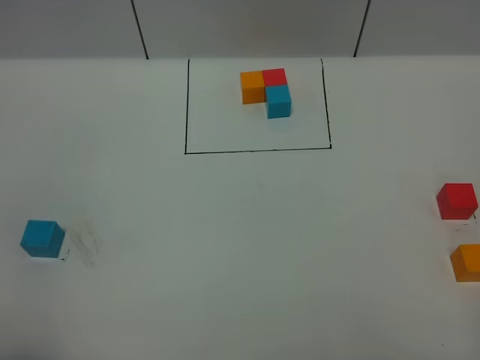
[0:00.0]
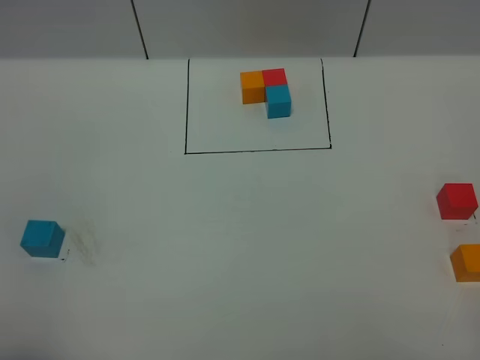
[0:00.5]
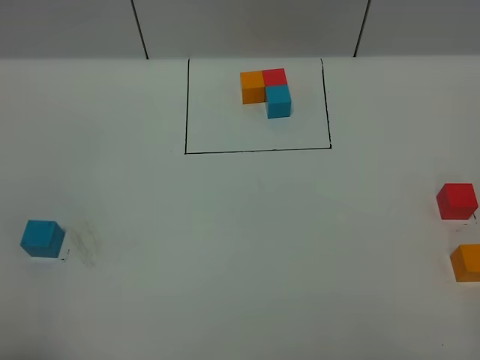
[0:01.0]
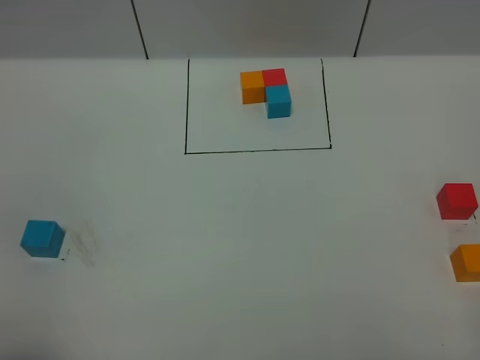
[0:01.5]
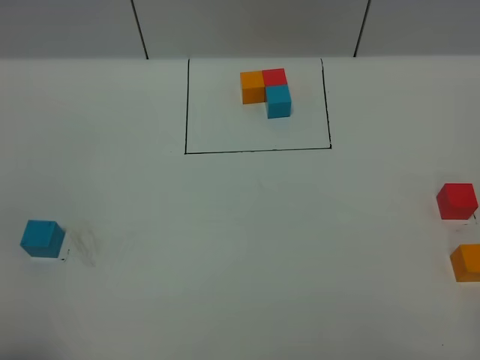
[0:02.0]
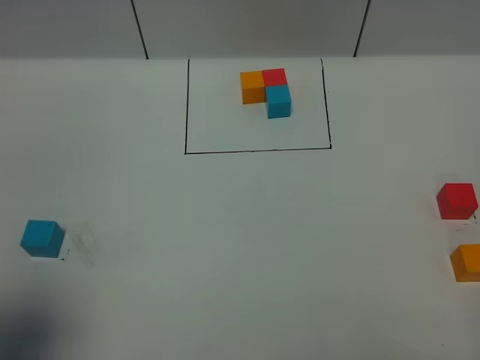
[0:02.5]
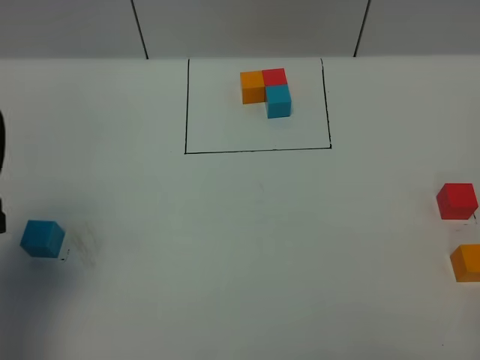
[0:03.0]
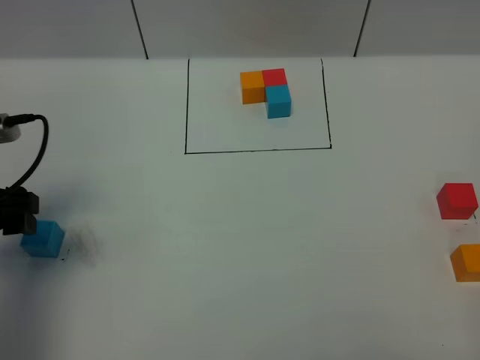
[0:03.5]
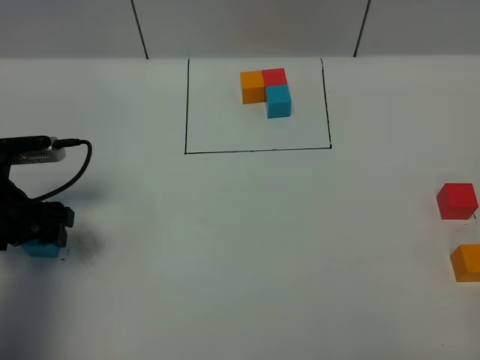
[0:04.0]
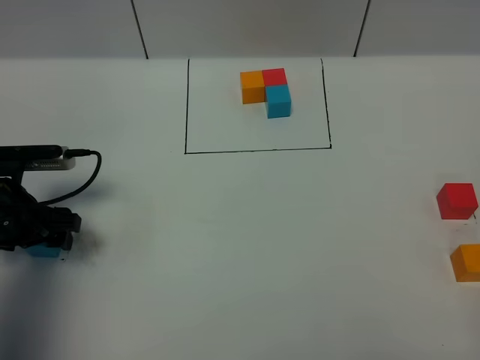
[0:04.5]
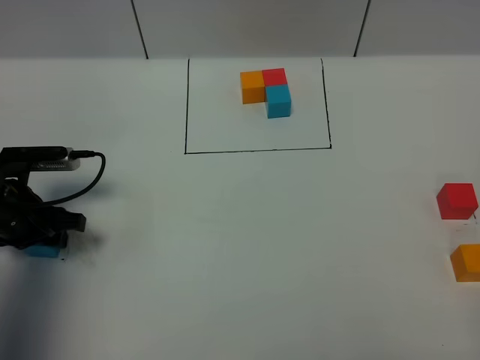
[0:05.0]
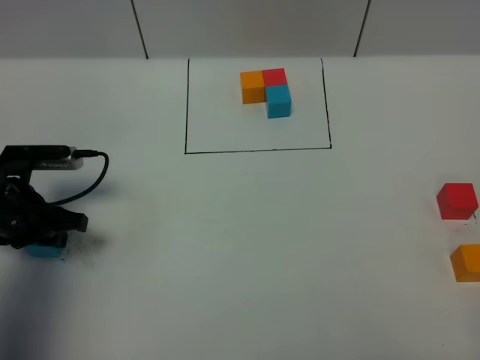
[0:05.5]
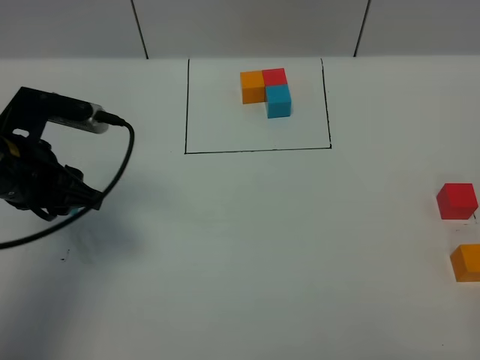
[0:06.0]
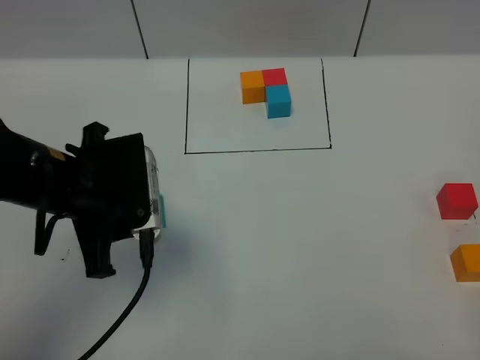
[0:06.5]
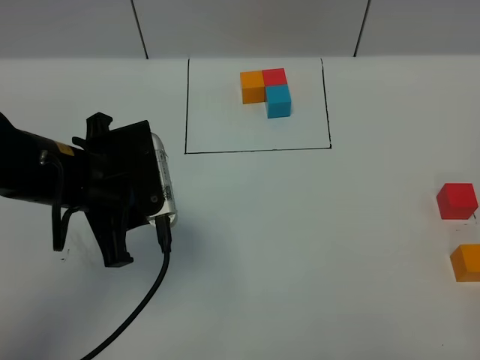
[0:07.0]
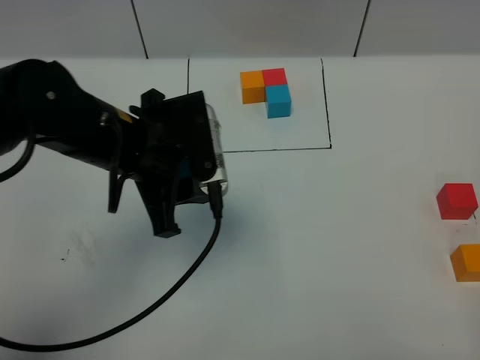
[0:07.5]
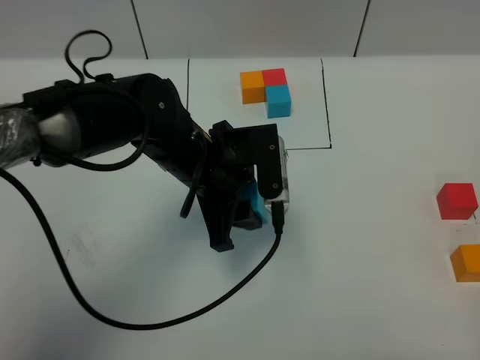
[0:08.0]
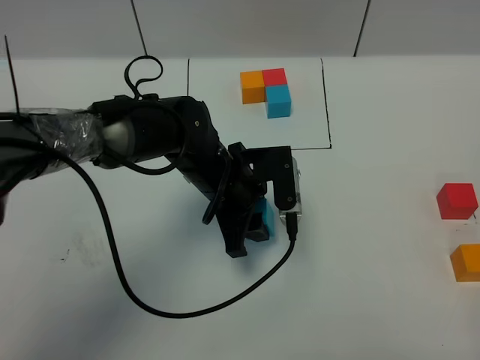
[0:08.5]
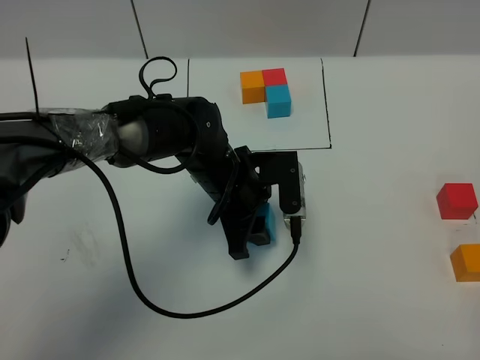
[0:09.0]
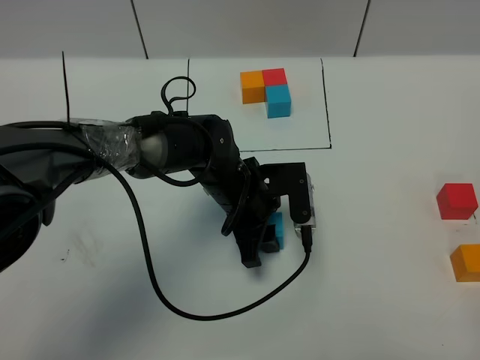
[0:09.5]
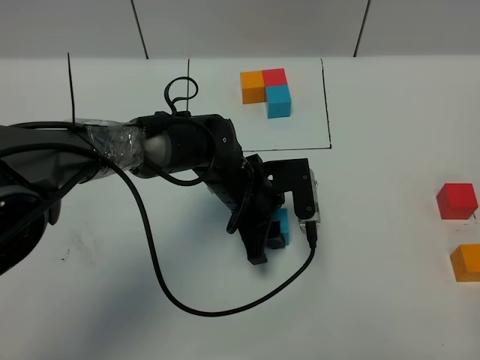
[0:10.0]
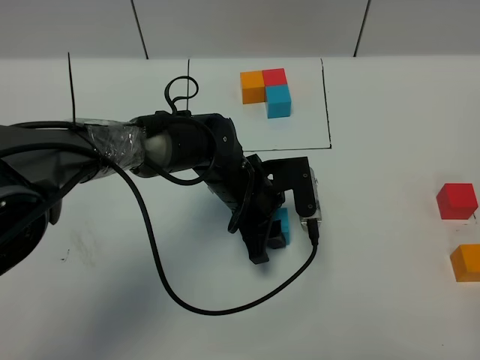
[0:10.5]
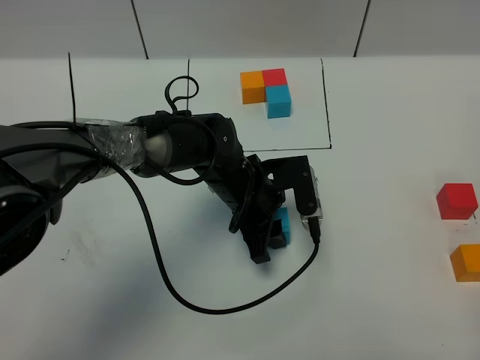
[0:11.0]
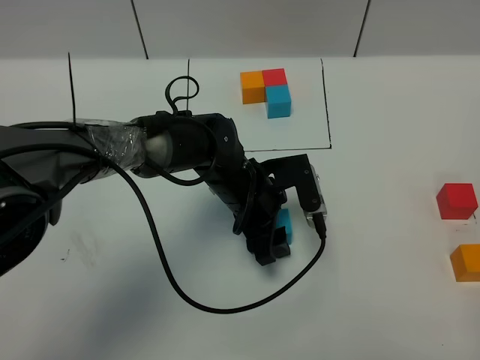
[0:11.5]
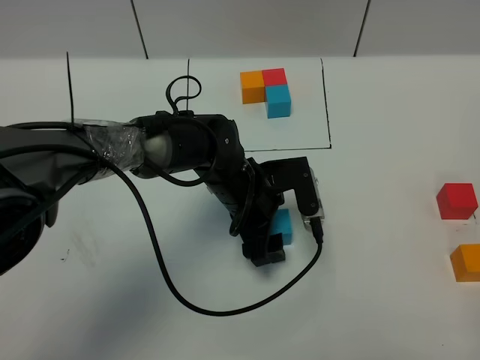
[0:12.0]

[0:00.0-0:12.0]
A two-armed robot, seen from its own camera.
Task of the whole recording: According to the building block template in front, assemble the scattered blocks together.
Step, 0:03.0 to 0:11.5: Put the blue cube in the center of the table.
0:02.0 to 0:04.0: The left gripper heads forward and downward, covering about 30 cm.
0:04.0 to 0:06.0: The left gripper goes roughly 10 cm upward and to the right, and closes up.
0:06.0 to 0:08.0: The left gripper heads to the right, covering some 20 cm.
0:08.0 to 0:10.0: The left gripper is displaced downward by about 10 cm.
0:10.0 to 0:12.0: The left gripper opens up.

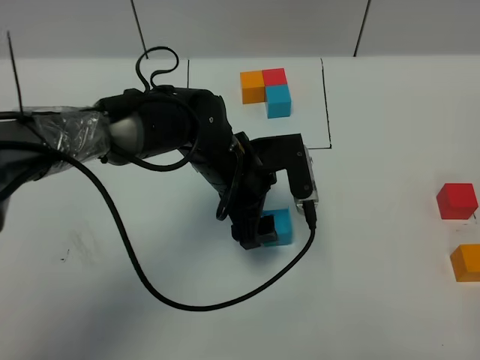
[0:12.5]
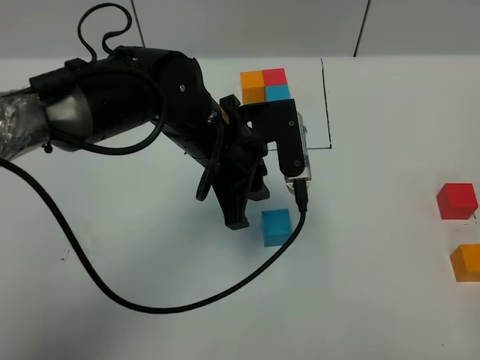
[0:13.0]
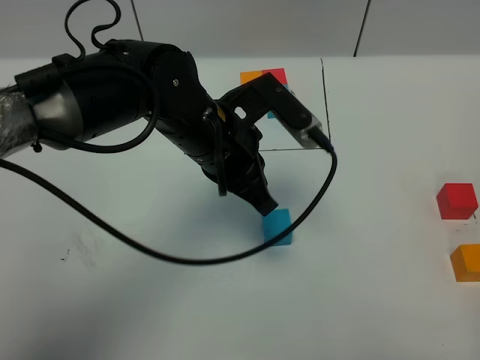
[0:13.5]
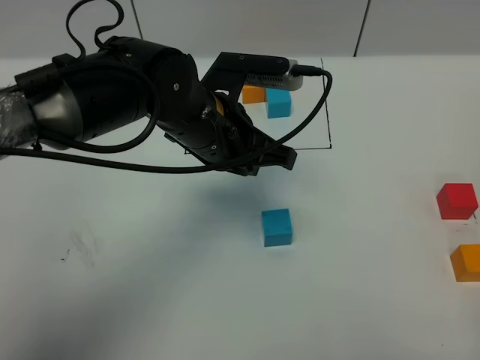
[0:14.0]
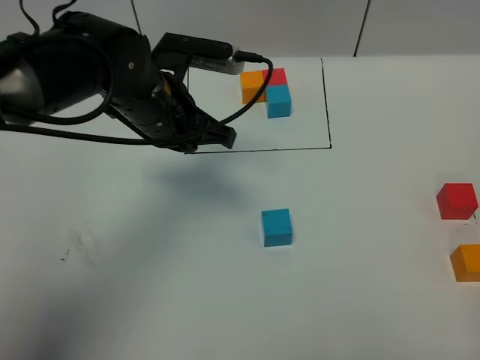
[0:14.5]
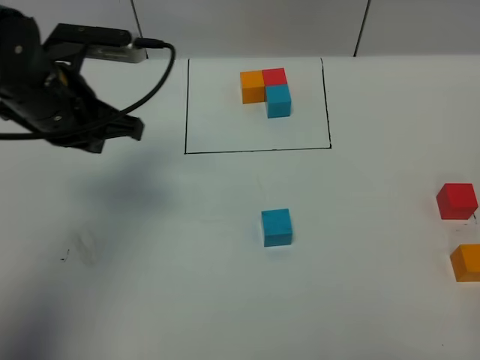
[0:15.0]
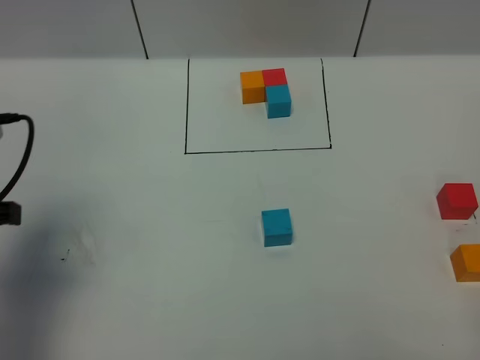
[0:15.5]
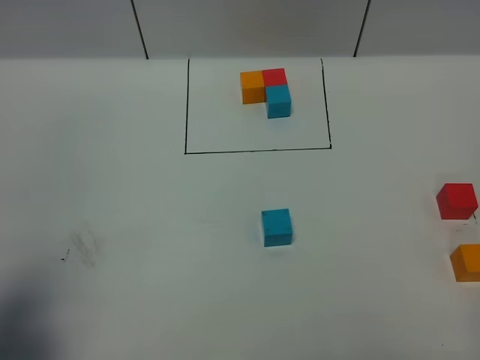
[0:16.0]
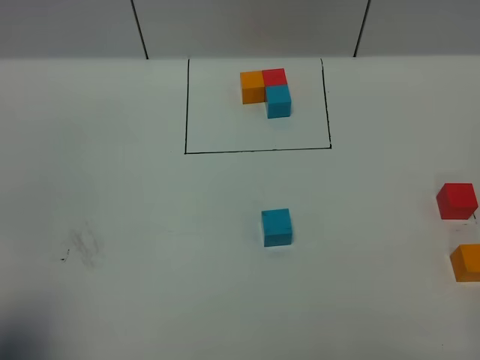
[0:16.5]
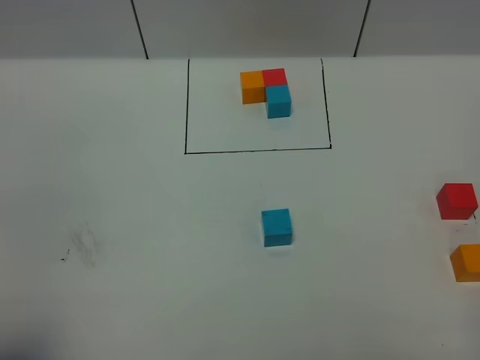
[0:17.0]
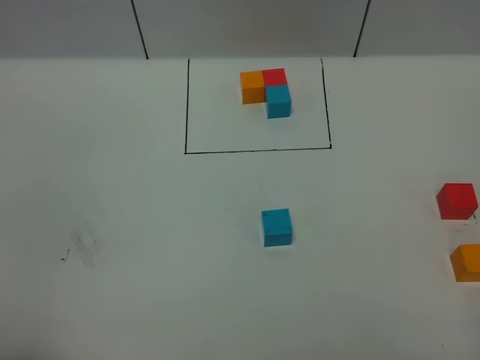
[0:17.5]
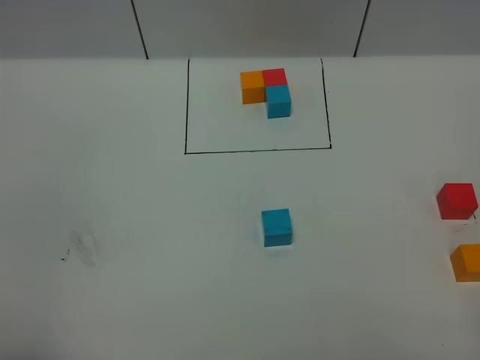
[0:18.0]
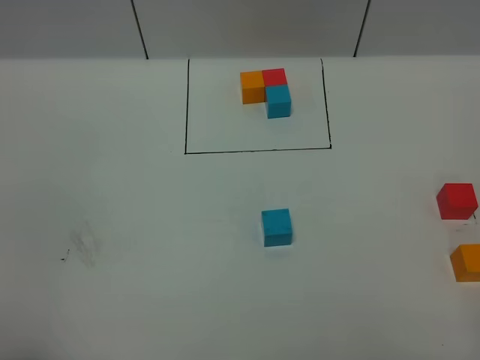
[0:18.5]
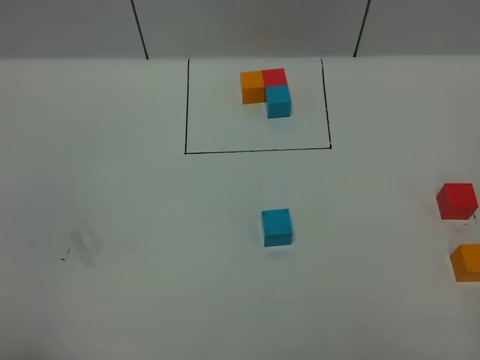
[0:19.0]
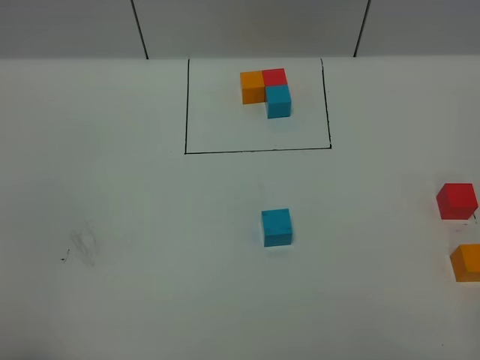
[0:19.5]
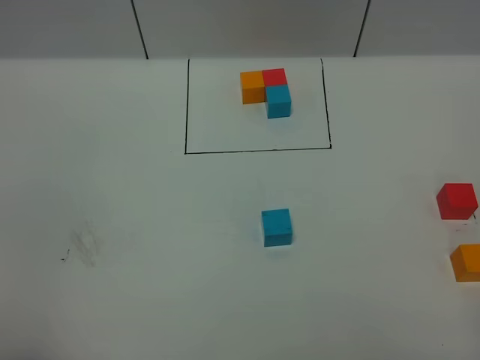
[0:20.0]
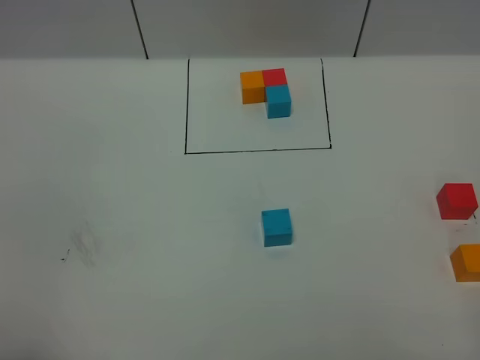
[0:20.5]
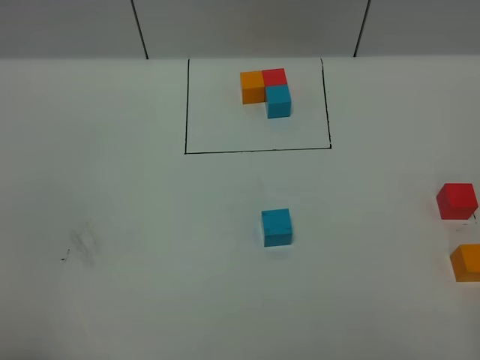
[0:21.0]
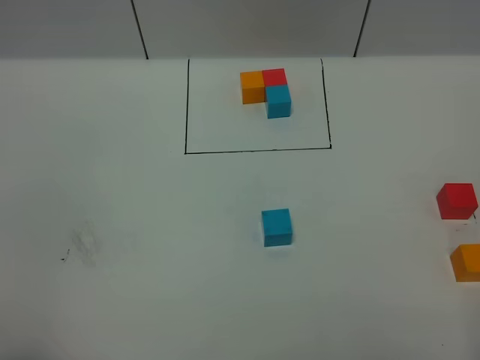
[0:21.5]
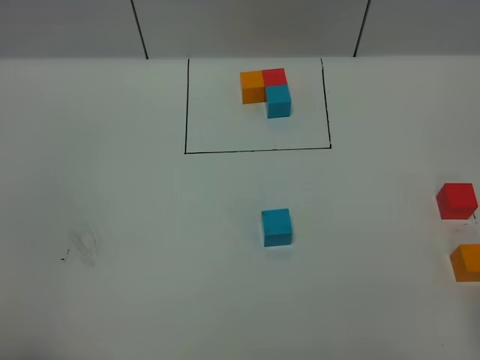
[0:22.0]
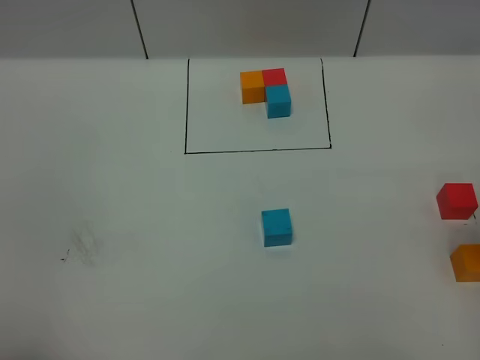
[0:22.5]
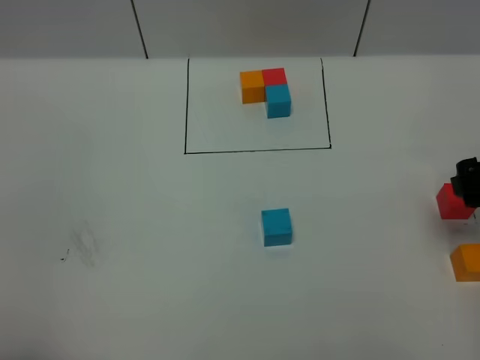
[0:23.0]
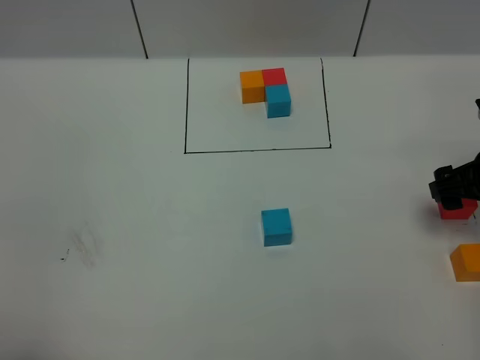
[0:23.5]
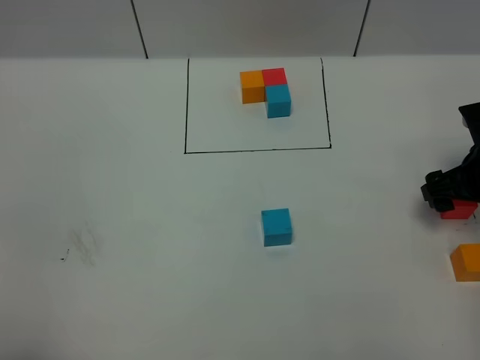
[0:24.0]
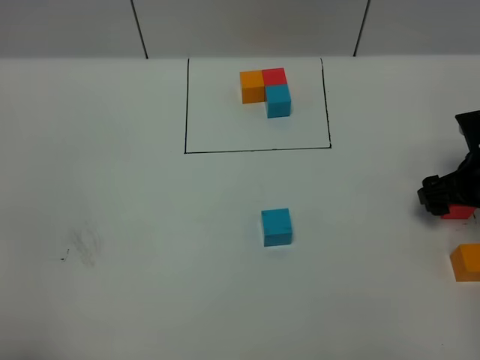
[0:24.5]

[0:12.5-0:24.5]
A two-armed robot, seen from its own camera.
Task of the whole recording: According to the building block template in front, assemble the scattered blocks together.
0:12.5 to 0:14.5: The left gripper is displaced to the left and upward by approximately 10 cm, and closes its fingers.
0:14.5 to 0:16.5: The left gripper is displaced backward and to the left by roughly 35 cm.
0:16.5 to 0:18.5: The left gripper travels backward by about 5 cm.
0:18.5 to 0:20.5: Both grippers stay about where they are.
0:22.5 to 0:24.5: The right gripper moves downward and forward, roughly 20 cm.

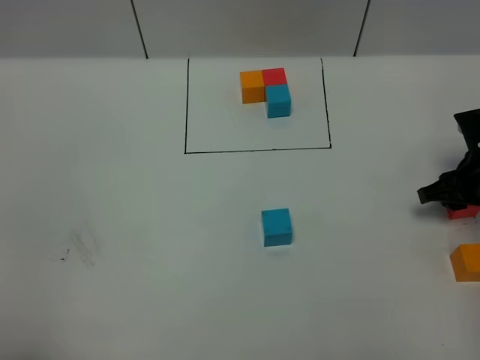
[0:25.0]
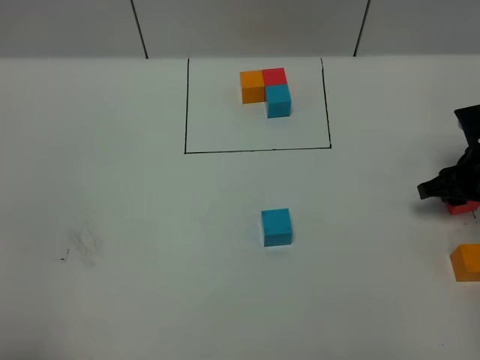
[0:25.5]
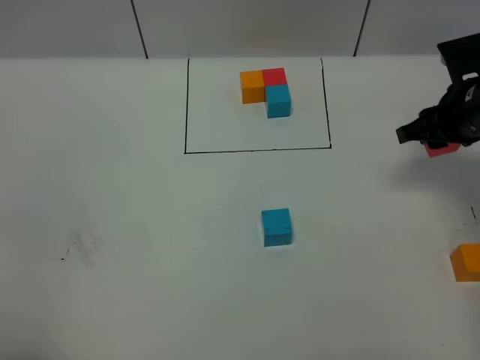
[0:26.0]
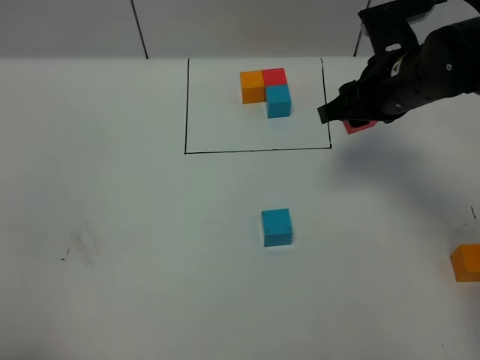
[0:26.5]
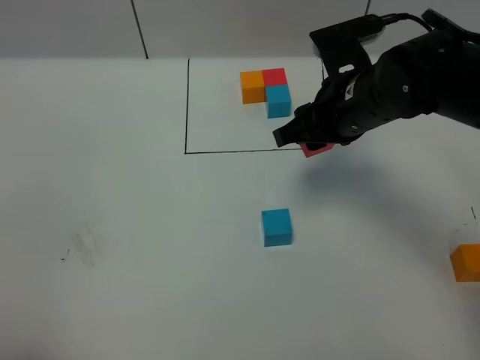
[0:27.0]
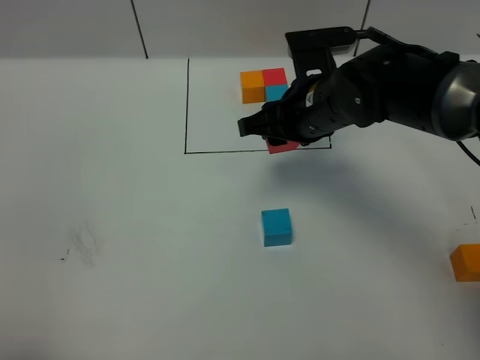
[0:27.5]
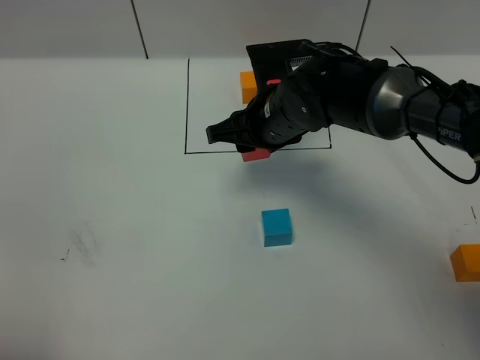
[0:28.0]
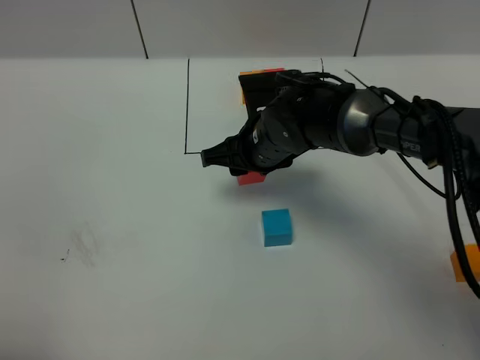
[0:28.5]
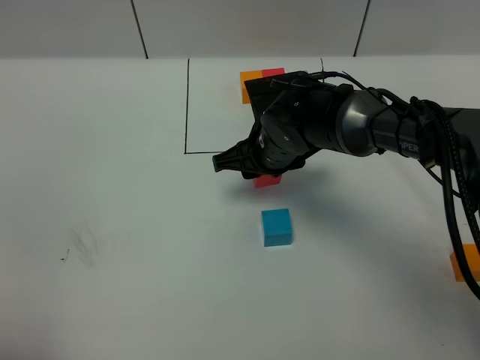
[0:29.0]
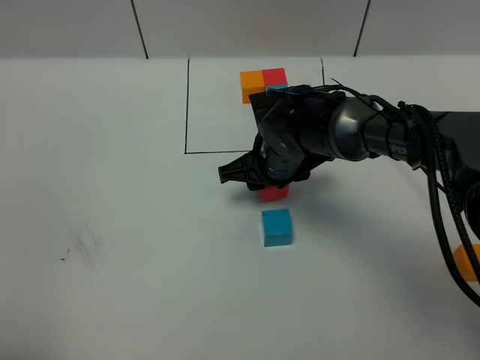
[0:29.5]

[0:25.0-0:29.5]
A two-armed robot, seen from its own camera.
Task of the whole recording: According to the building block template in front, assemble the scattered blocks together.
0:25.0 to 0:27.0: The right gripper heads to the left and upward, covering approximately 25 cm.
0:27.0 to 0:29.5: The right gripper goes about 15 cm downward and to the left.
